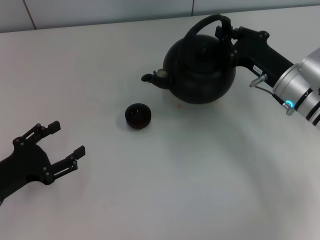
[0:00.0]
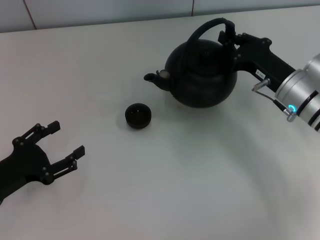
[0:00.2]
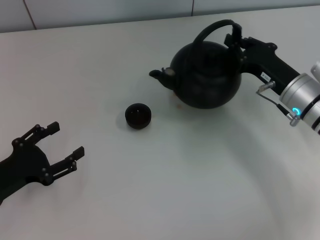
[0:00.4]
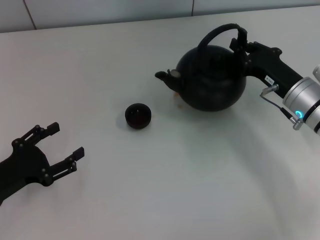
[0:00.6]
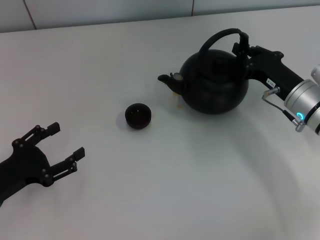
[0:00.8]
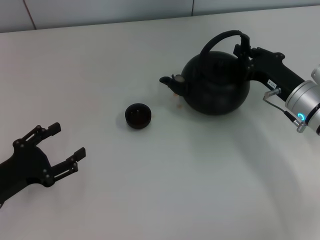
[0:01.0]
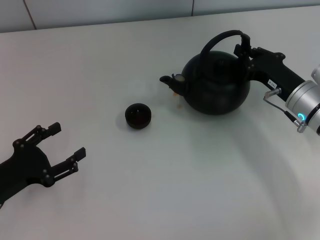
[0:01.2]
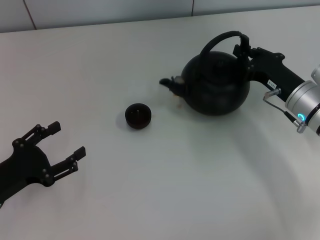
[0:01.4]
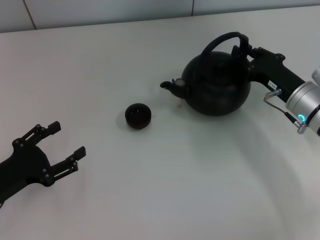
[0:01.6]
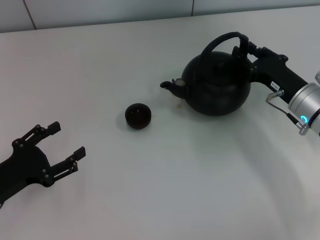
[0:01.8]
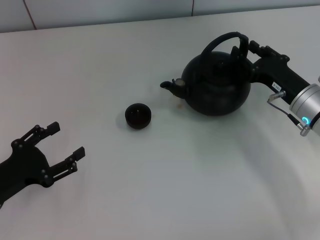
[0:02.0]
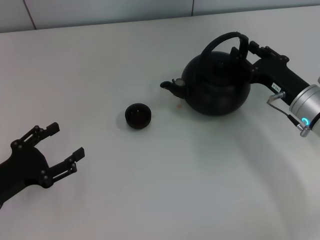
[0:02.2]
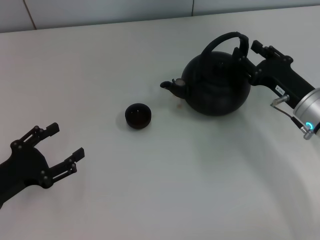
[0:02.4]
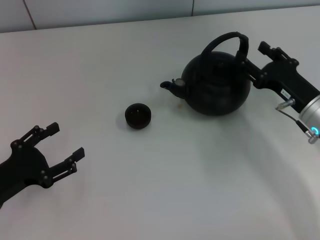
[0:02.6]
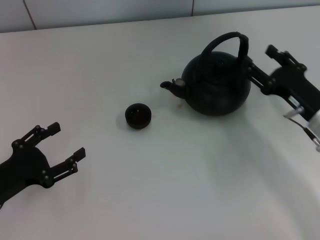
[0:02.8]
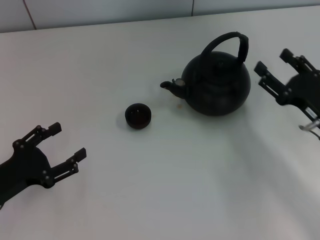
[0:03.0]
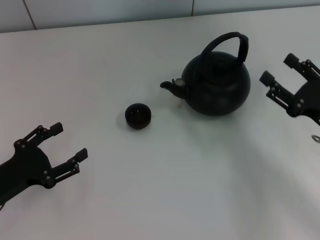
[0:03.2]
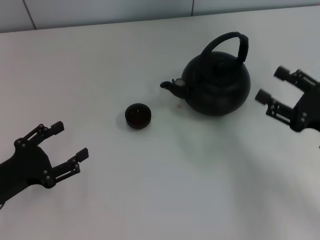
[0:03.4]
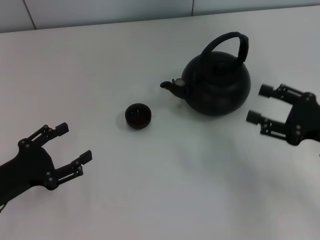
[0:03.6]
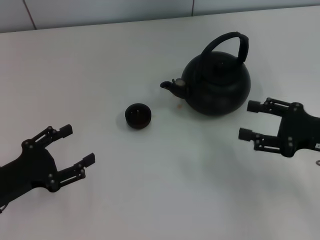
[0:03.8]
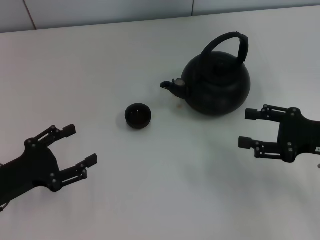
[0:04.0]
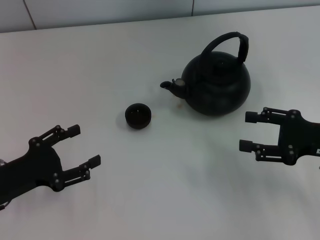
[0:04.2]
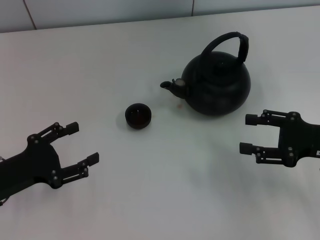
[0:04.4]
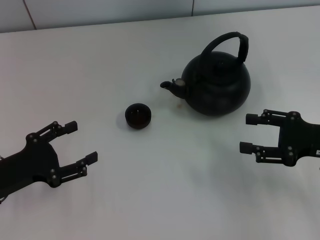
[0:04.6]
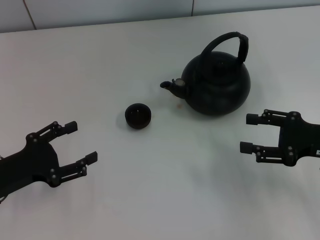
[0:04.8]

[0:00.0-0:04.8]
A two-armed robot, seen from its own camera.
Task of the whole recording: Grasp the handle of the teapot with one hand and pour tea into the teacup.
Step, 0:00.0 to 0:03.0: Put down the teapot with the right gripper.
0:00.0 to 0:01.6: There are only small adjustments of the grippers.
0:01.6 to 0:03.2: The right gripper travels backward by approximately 10 cm, and opens.

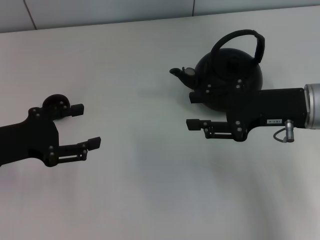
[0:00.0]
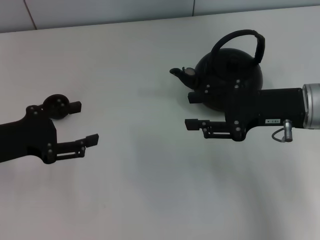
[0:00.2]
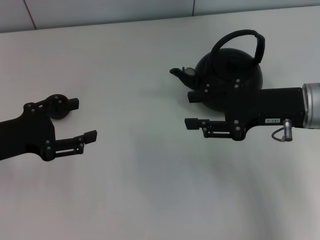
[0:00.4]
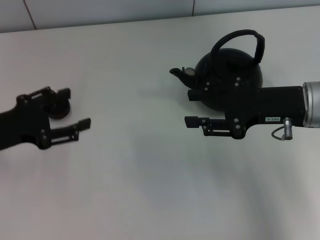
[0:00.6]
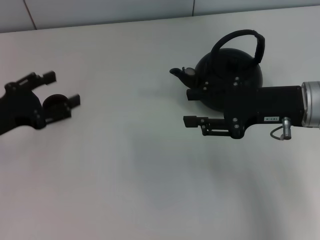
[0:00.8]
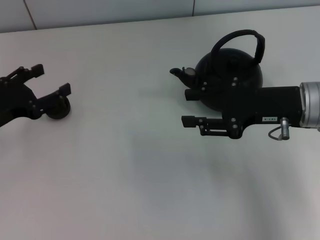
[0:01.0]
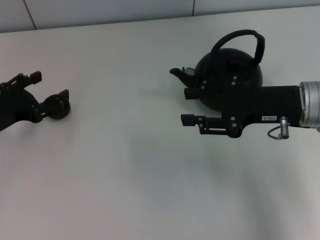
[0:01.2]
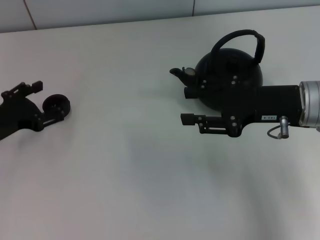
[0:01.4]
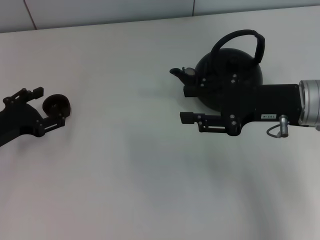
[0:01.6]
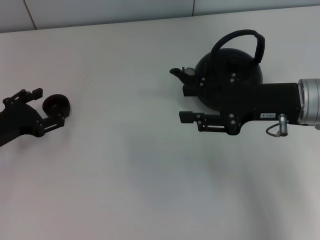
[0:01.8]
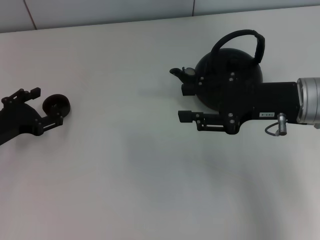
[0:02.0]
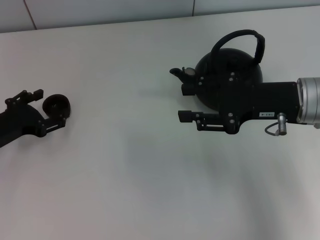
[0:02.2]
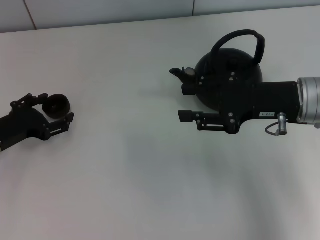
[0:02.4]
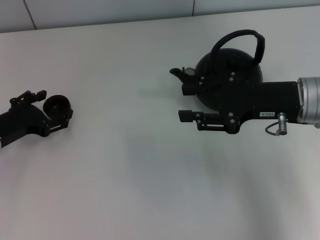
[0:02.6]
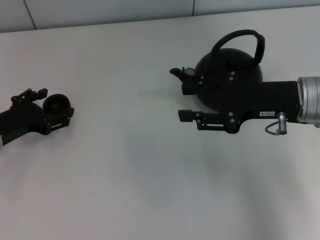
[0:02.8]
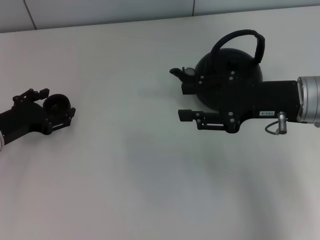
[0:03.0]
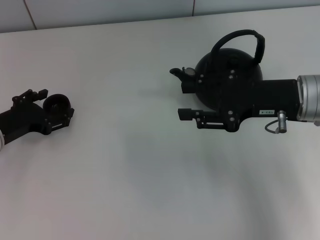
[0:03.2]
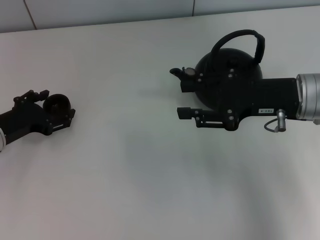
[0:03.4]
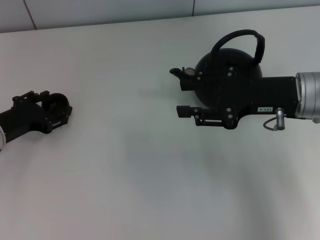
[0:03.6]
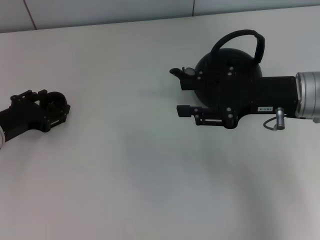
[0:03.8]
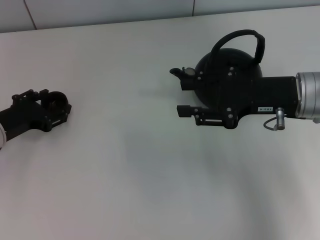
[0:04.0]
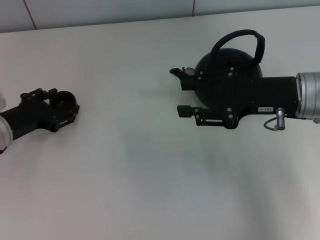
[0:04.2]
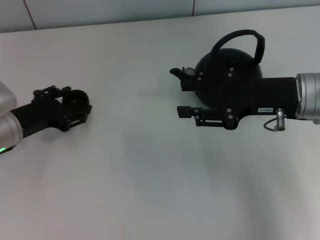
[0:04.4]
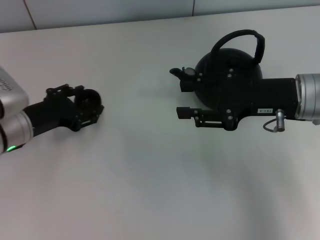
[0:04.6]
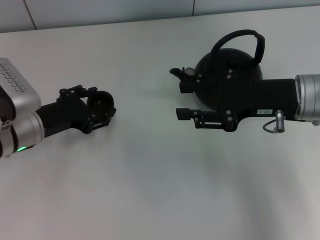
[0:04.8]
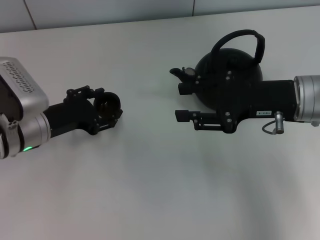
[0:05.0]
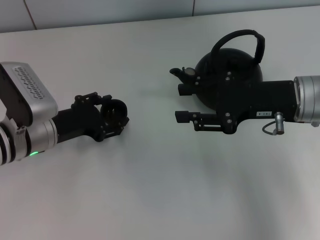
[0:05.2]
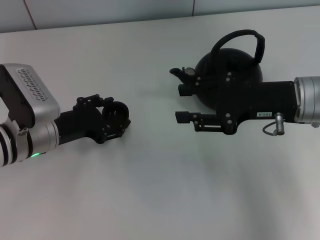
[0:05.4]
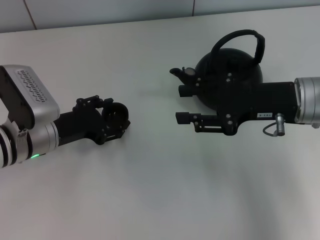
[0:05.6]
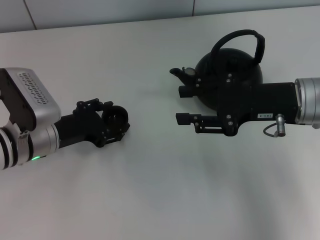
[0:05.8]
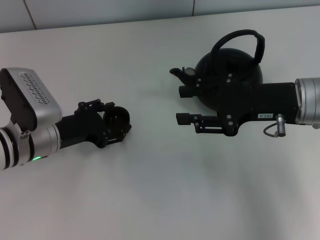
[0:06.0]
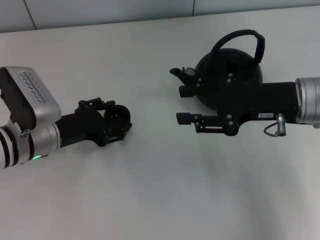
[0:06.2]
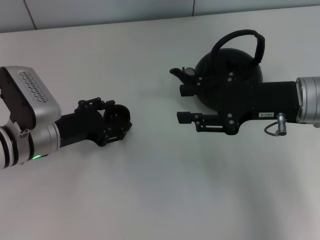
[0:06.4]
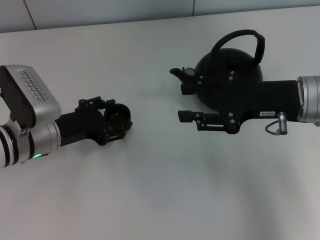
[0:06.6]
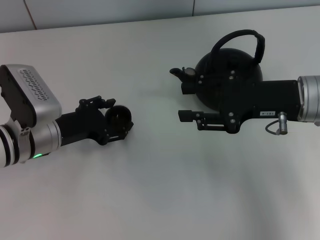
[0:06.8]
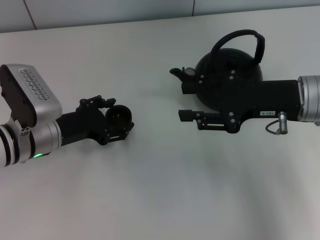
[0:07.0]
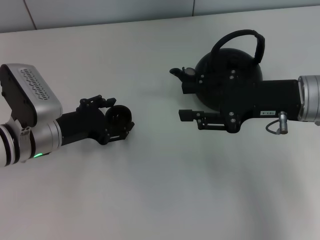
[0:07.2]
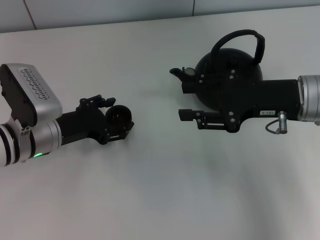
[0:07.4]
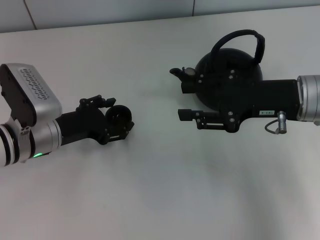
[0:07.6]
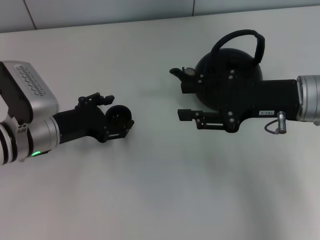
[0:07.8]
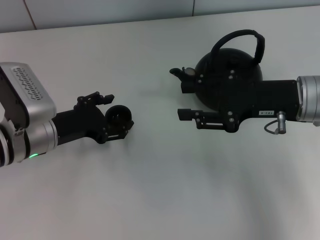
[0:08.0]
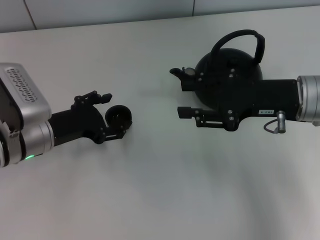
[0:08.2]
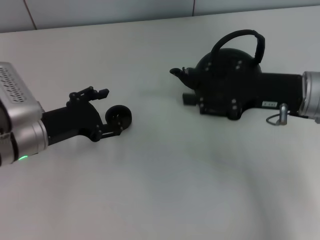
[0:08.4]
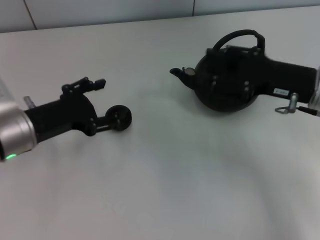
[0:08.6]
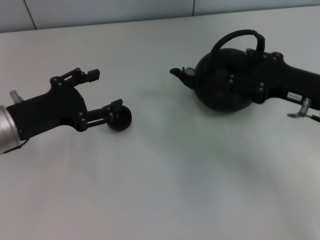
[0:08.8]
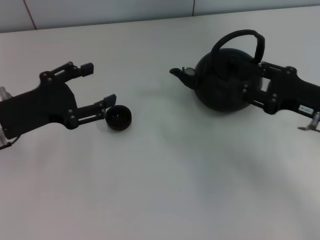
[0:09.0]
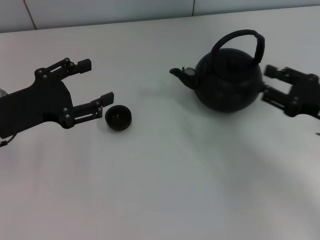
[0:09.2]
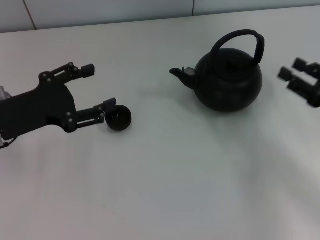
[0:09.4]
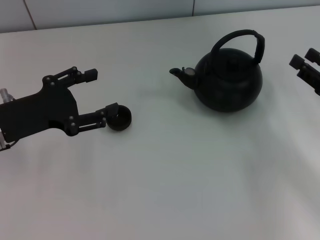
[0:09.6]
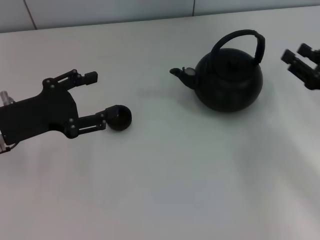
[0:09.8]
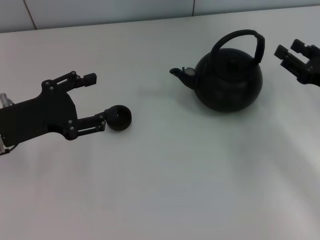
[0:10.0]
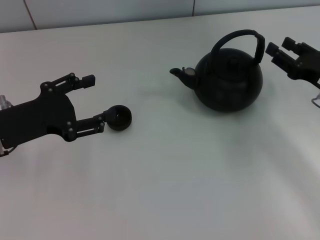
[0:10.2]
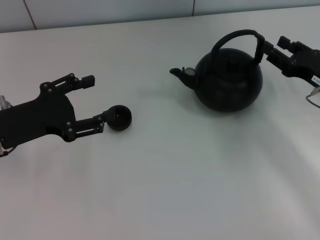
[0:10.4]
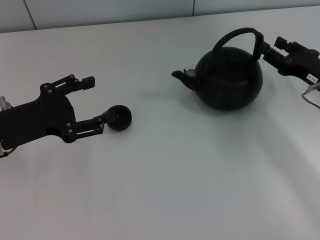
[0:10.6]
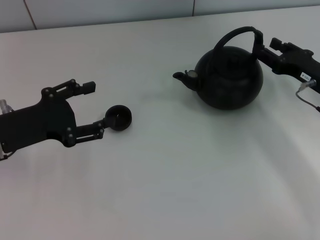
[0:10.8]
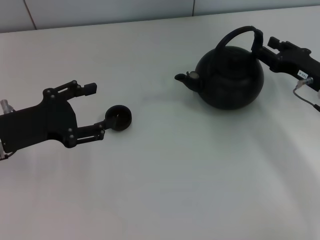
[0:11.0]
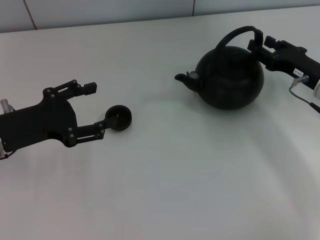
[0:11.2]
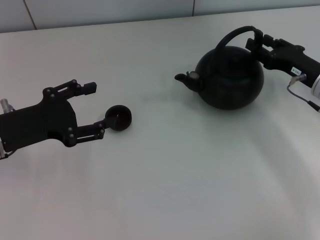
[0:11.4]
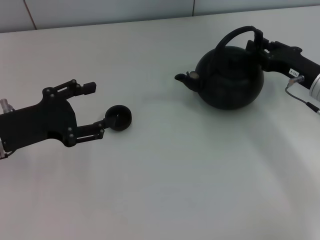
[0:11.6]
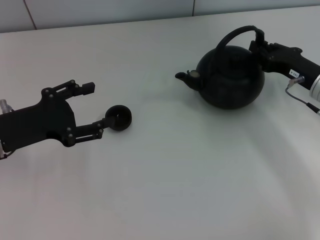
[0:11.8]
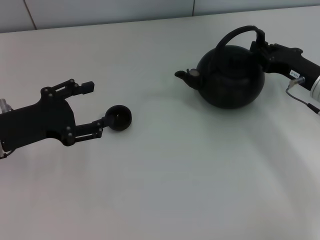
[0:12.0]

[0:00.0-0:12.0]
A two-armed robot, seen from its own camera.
Task of the whole recording: Grasp the handle of the teapot with one hand and pour tea into the teacup.
Step, 0:00.0 to 0:04.2: Pick up the teacup with the left gripper.
Step, 0:04.6 to 0:08.4: Place the teacup in the center of view with the left gripper.
0:00.0 to 0:01.6: The left gripper changes place by approximately 5 cm.
0:01.6 to 0:03.0: The grippers move only a little.
0:03.0 to 0:04.4: The left gripper closes.
0:04.4 to 0:06.0: The left gripper heads to the right, covering about 5 cm.
0:06.0 to 0:07.6: The left gripper opens.
0:07.6 to 0:09.0: The left gripper moves upward, some 5 cm; the right gripper shifts about 5 cm to the right.
0:09.0 to 0:10.4: The right gripper changes place by some 5 cm.
0:10.4 to 0:12.0: The right gripper closes up.

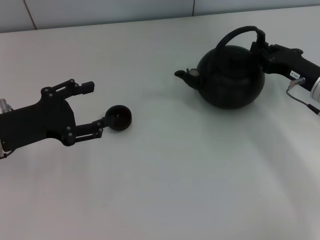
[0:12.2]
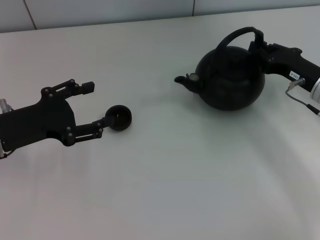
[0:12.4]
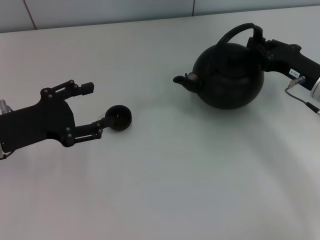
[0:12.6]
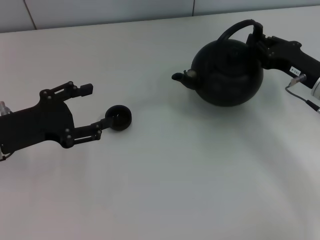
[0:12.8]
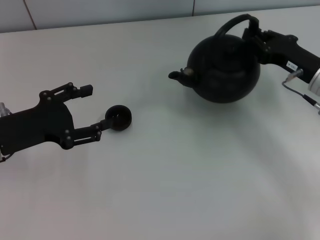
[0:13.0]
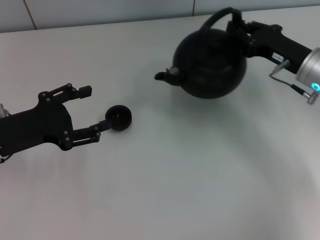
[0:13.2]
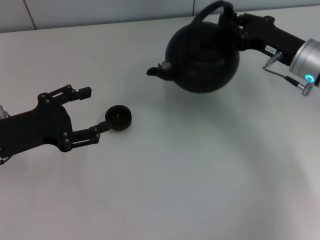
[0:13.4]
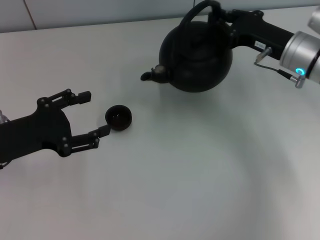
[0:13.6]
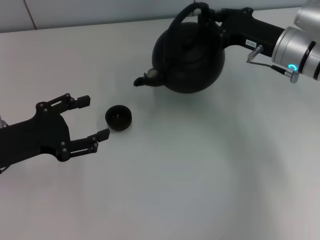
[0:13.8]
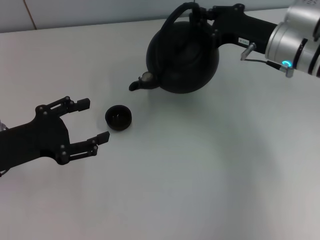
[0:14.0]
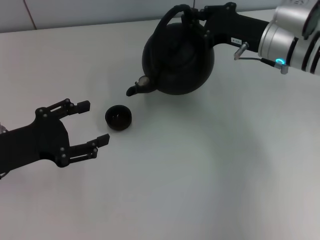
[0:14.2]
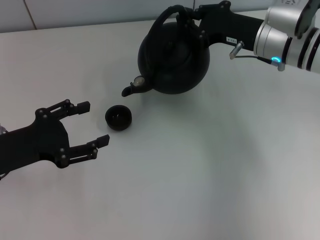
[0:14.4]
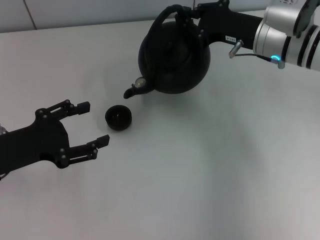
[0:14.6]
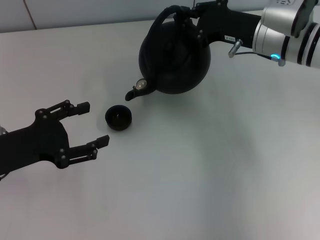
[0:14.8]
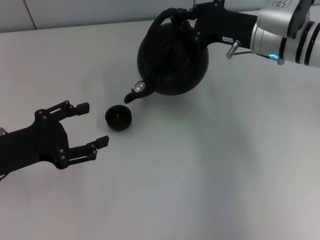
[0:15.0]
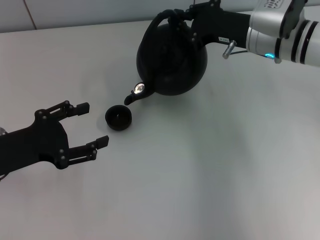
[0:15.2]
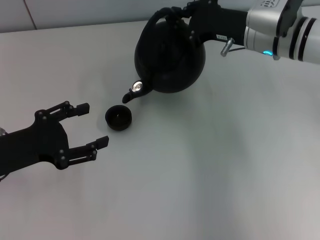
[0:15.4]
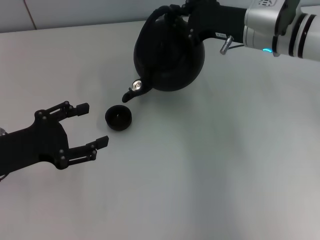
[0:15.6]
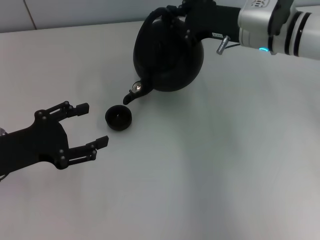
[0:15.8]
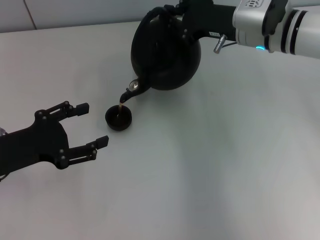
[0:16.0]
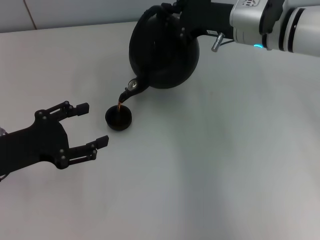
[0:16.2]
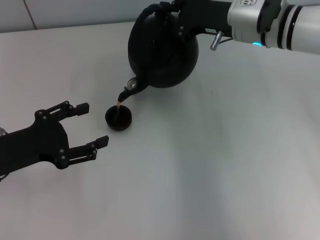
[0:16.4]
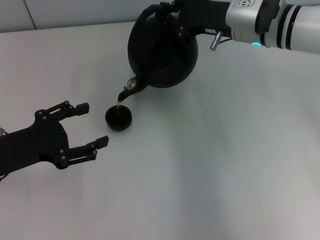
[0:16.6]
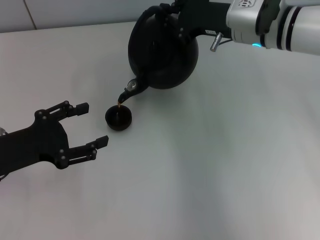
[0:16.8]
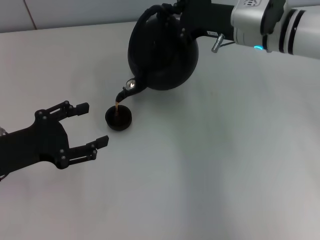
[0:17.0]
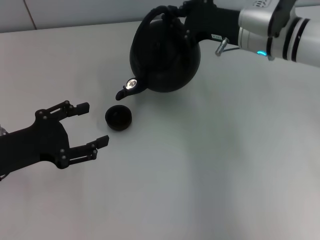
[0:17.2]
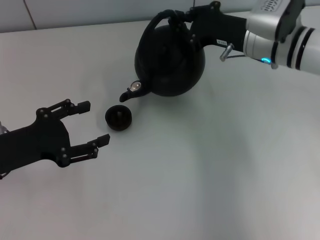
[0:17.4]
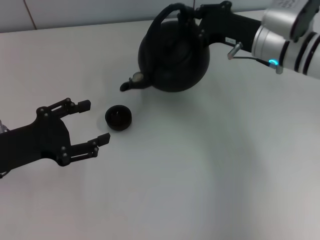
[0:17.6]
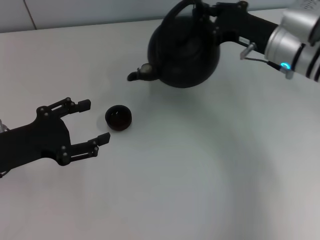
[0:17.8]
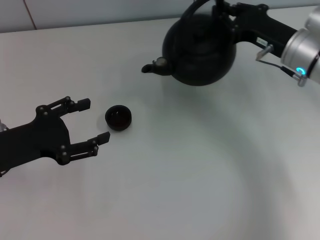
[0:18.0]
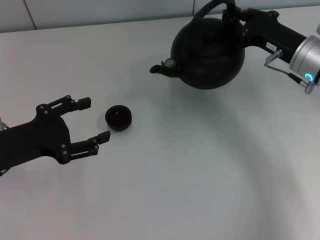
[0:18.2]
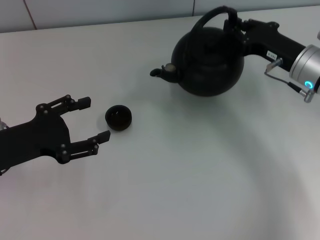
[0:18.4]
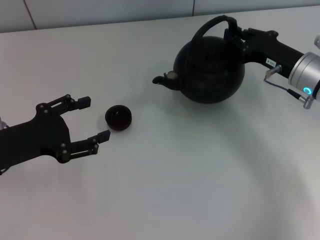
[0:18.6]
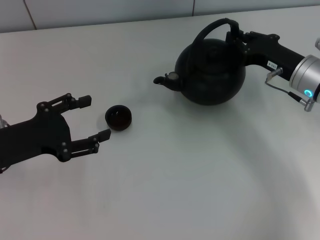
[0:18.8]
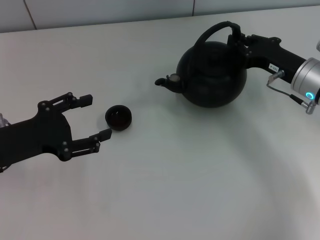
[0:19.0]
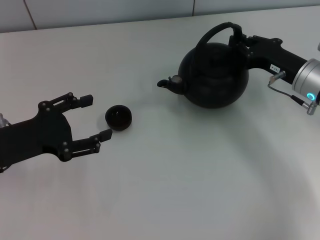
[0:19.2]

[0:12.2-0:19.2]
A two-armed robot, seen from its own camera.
Task of the whole recording: Grasp the handle of the teapot with one hand and pour tea into the teacup.
0:12.2 to 0:13.6: The right gripper moves to the left, about 5 cm.
0:13.6 to 0:15.0: The right gripper shifts by approximately 5 cm.
0:15.0 to 0:16.4: There are only small adjustments of the grippers.
0:16.4 to 0:17.8: The right gripper moves to the right, approximately 5 cm.
0:17.8 to 0:19.2: The right gripper shifts by some 5 cm.
